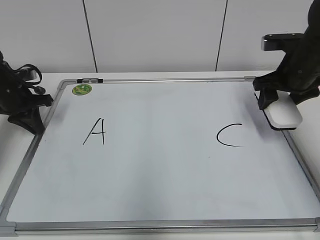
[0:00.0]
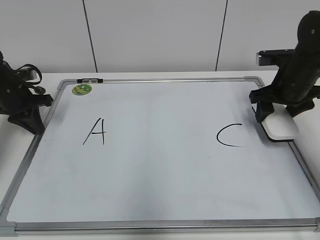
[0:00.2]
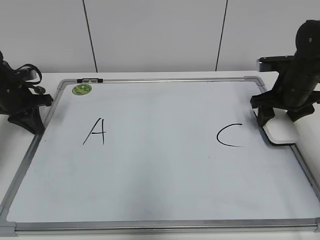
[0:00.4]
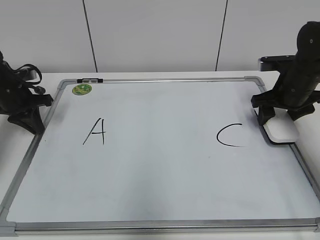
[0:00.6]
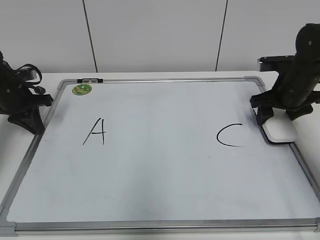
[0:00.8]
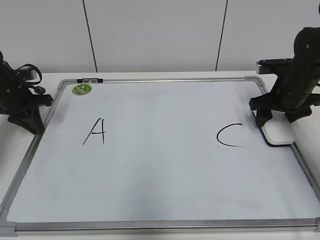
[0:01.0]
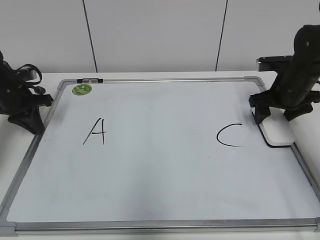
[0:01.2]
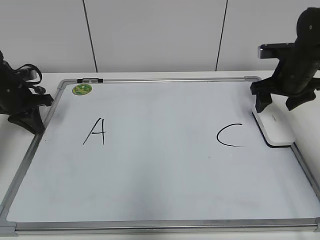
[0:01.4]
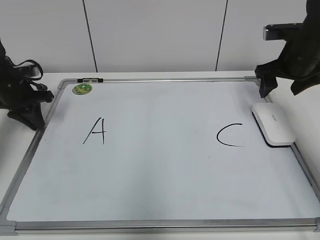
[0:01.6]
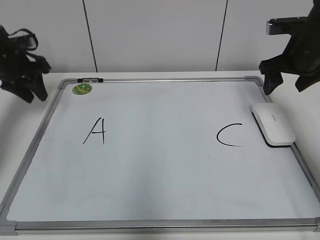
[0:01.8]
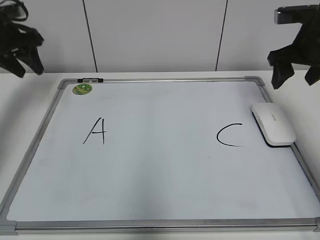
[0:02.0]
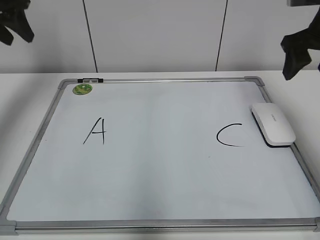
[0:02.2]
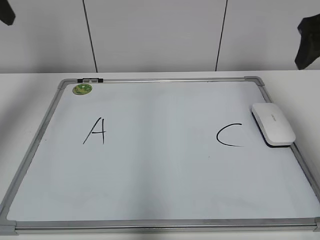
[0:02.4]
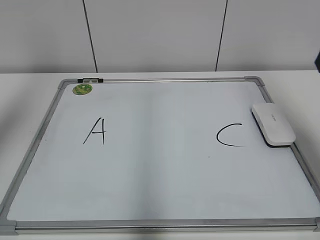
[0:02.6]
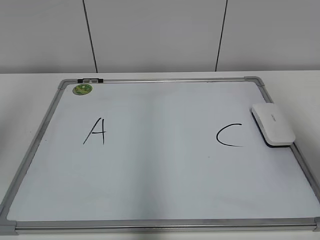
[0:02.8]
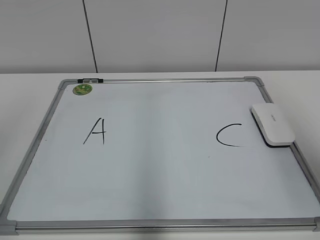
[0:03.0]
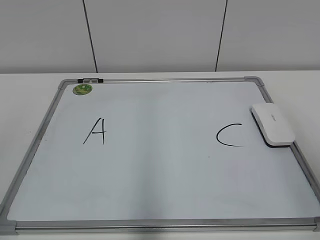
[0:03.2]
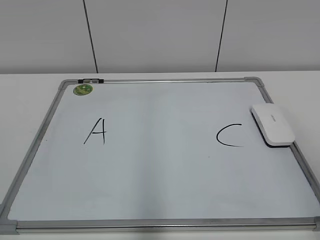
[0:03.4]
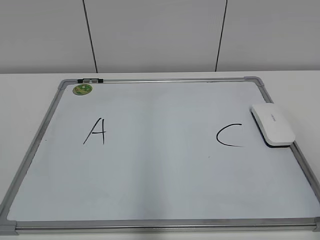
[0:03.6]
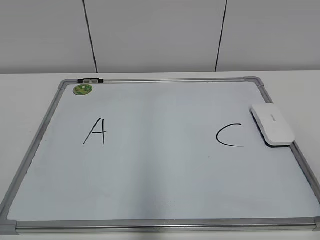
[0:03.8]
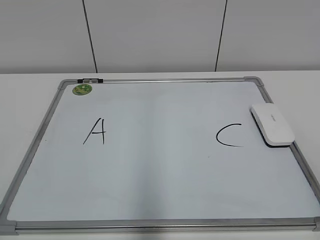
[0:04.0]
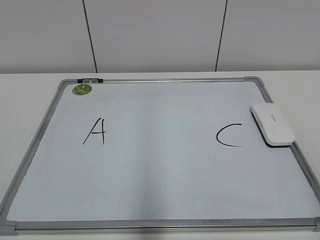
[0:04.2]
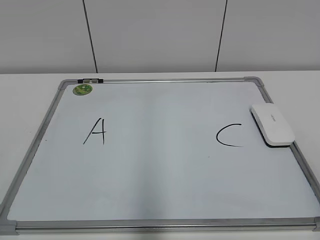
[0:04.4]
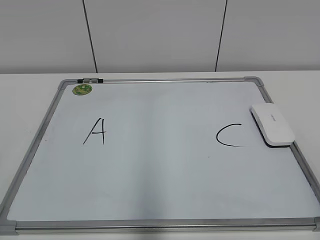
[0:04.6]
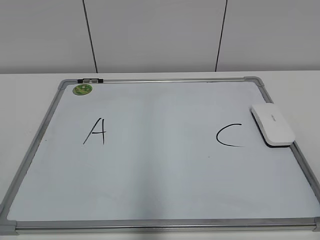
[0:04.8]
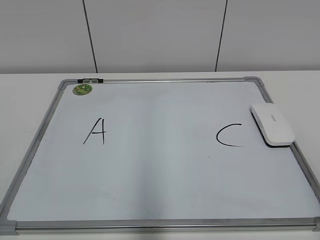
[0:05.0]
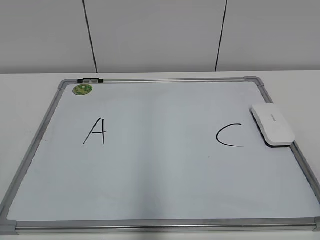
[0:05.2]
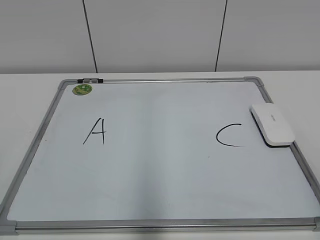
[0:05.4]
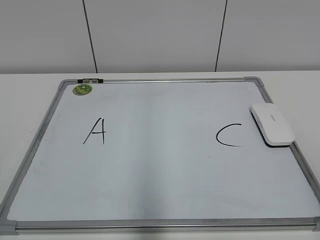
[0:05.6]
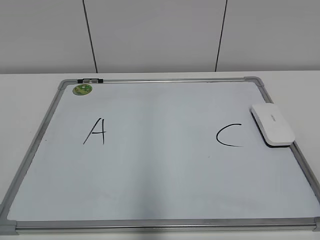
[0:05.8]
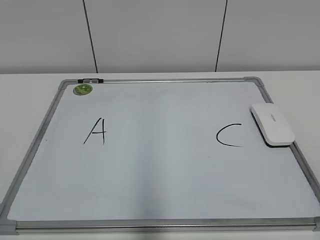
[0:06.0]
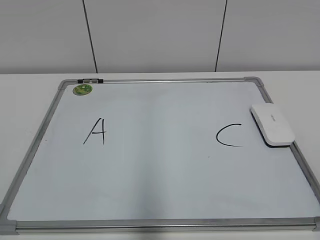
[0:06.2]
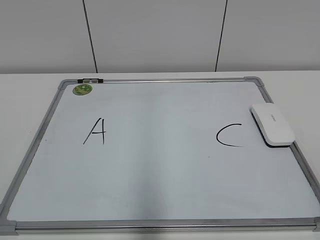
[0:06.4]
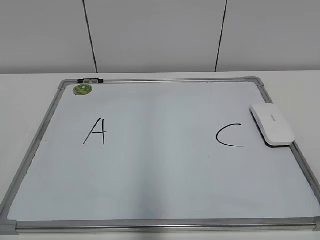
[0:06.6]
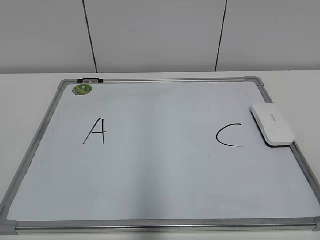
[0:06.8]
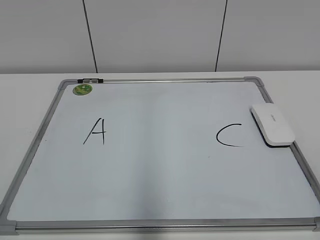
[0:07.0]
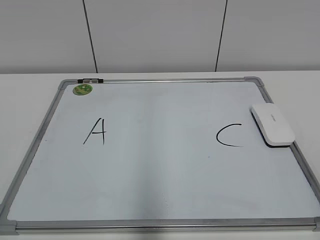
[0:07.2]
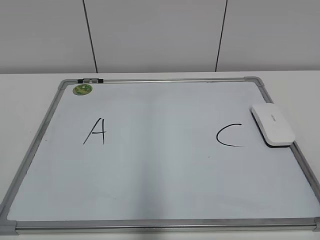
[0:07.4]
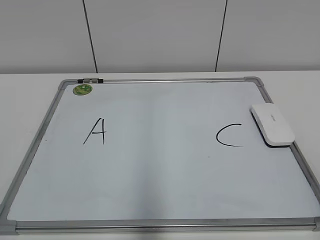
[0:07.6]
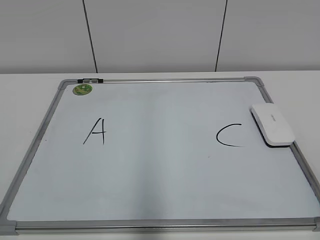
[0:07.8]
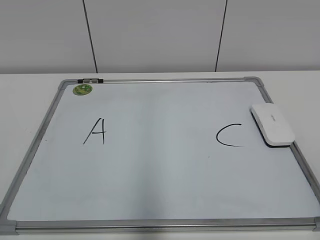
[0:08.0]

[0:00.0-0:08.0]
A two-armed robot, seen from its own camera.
Task of the whole recording: pick up the eraser on the blackboard and erase the letter "B".
0:00.0 to 0:01.6: The right gripper opens up.
0:01.6 to 0:03.2: The grippers both shift backward and upward by approximately 40 cm. The left gripper opens its fingers.
0:06.4 to 0:08.0: Neither gripper changes place.
